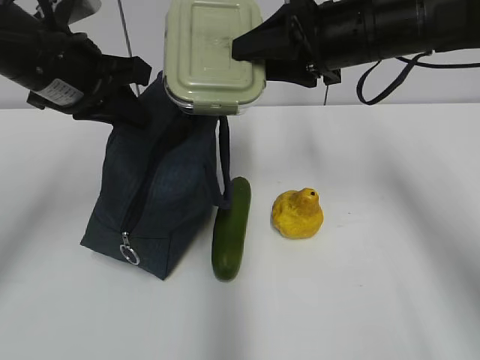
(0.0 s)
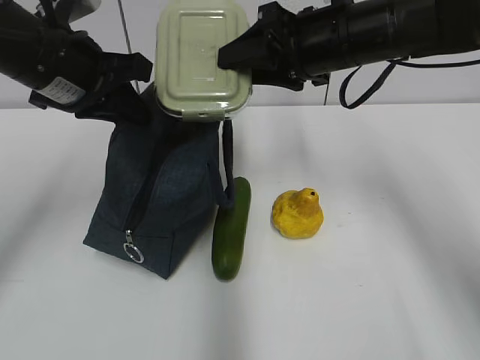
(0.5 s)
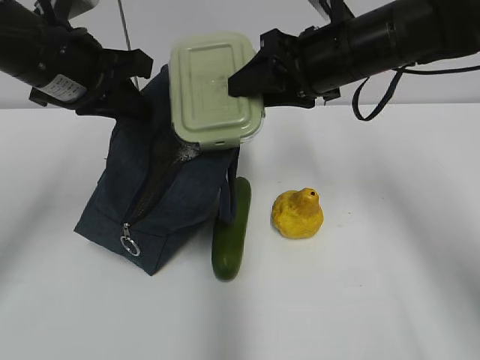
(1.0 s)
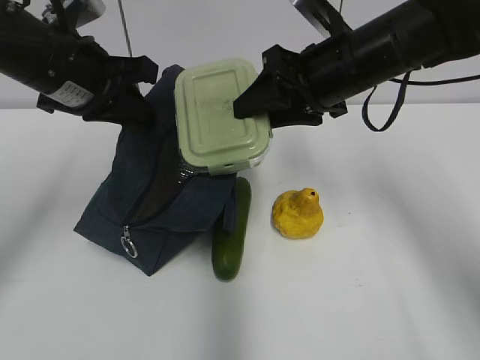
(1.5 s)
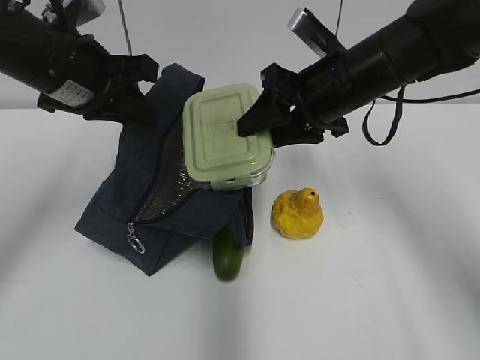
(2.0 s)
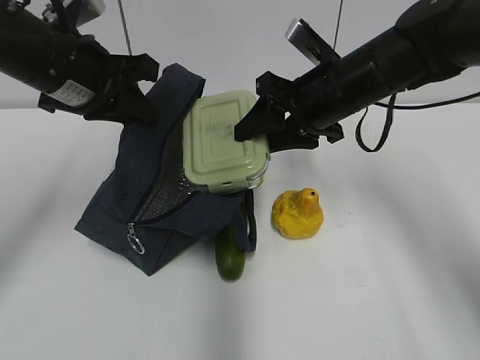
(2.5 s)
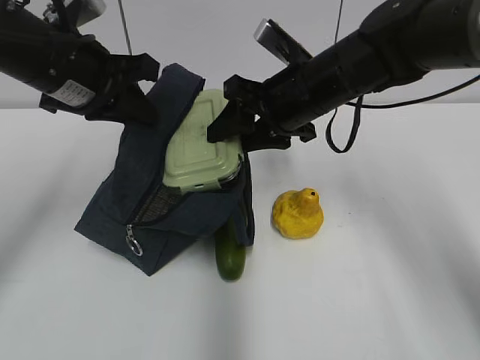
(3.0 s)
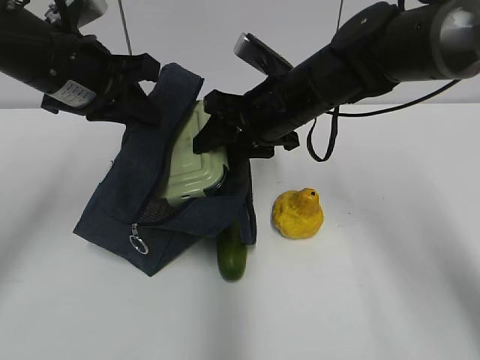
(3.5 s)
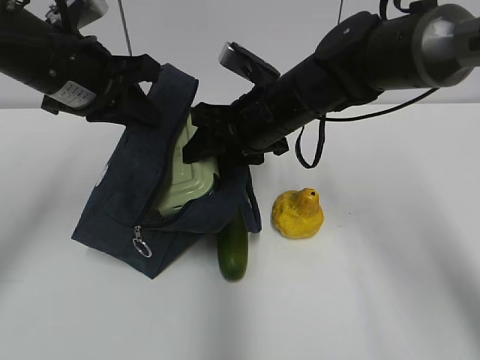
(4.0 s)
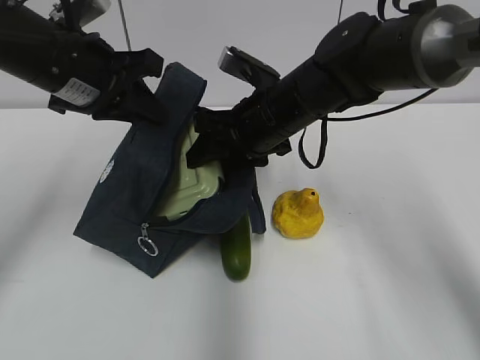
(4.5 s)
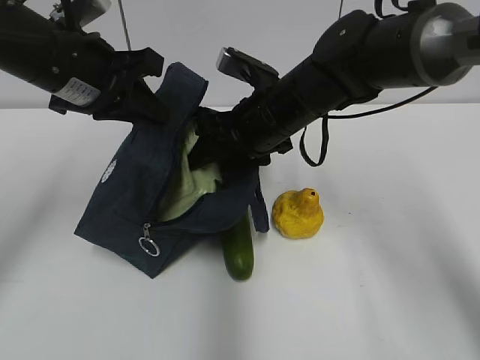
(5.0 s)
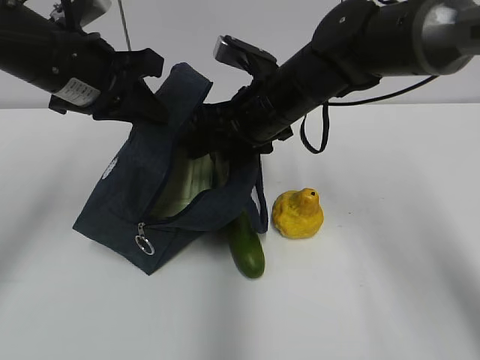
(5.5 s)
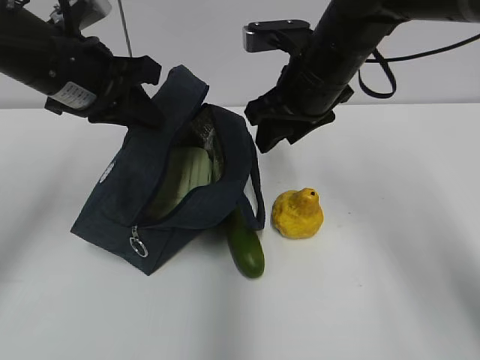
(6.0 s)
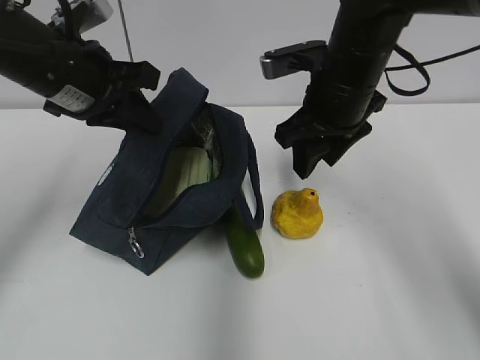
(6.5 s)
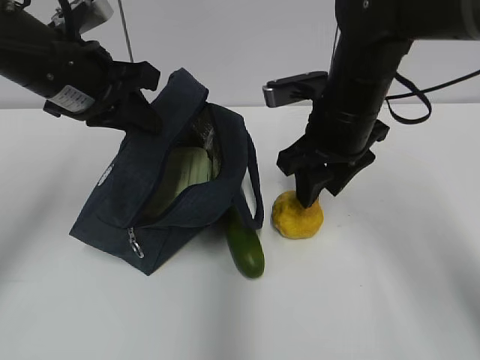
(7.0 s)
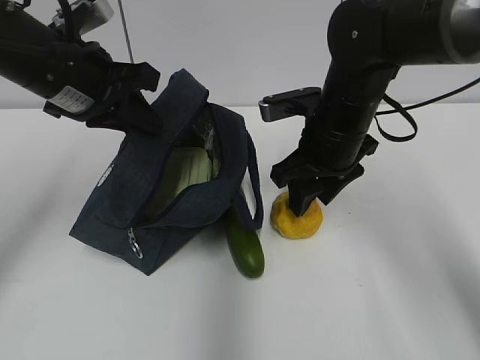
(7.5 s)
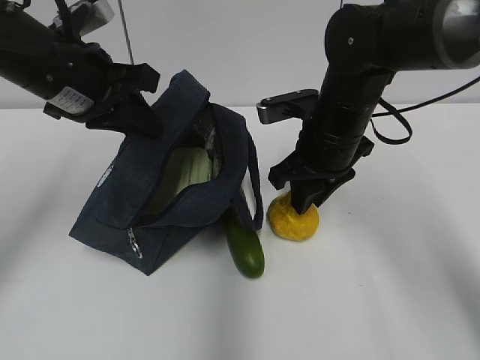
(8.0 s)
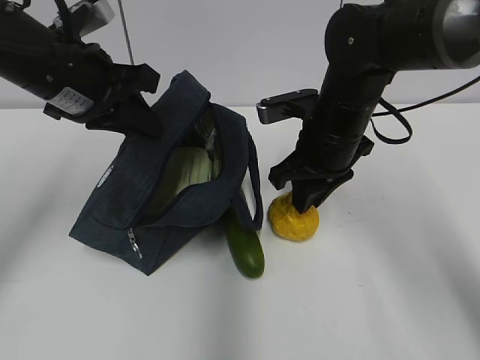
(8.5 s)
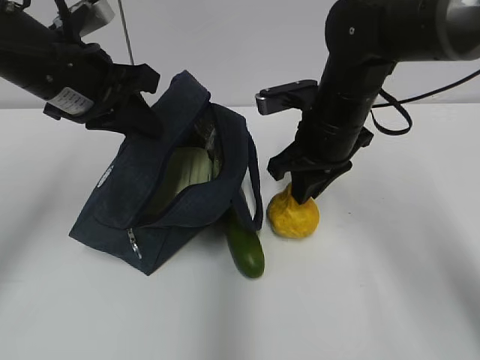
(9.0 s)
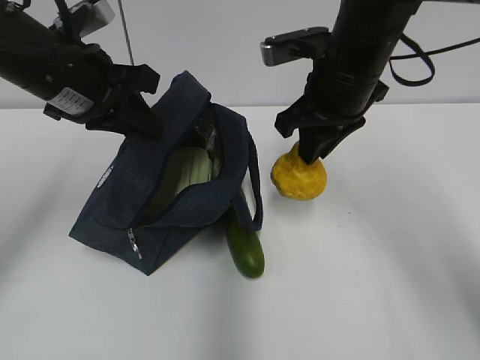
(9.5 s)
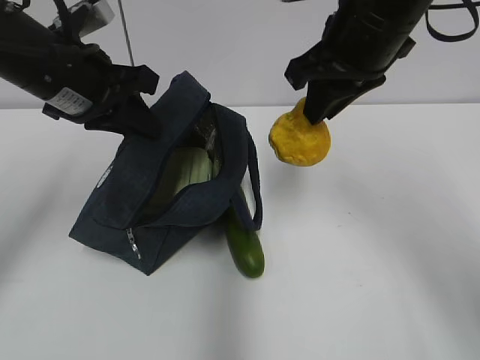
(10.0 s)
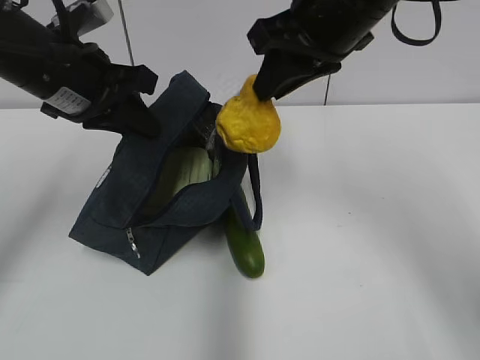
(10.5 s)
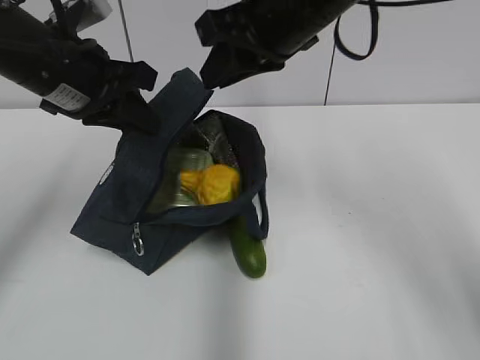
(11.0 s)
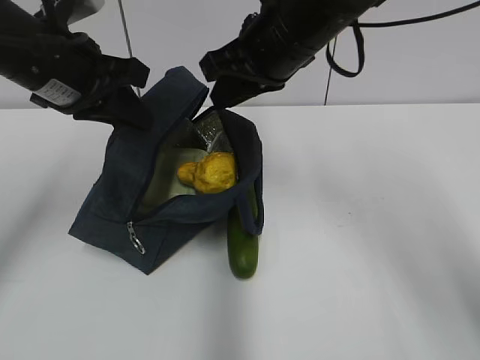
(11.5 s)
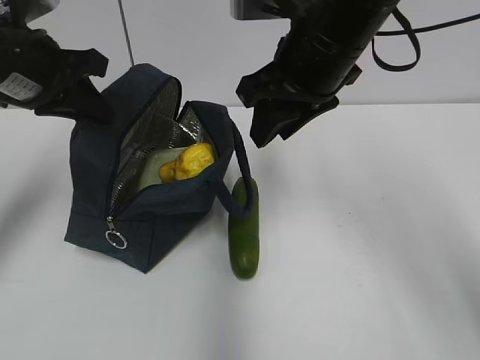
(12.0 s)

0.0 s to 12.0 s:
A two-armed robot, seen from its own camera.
2.0 to 4.0 s: The right gripper heads to the left, covering roughly 5 cm.
4.0 to 6.0 s: The right gripper changes place by some 5 cm.
6.0 to 8.0 s: The right gripper travels downward by roughly 5 cm.
8.0 to 10.0 s: The right gripper heads upward, covering approximately 15 cm.
10.0 to 12.0 s: The left gripper shifts approximately 5 cm to the left.

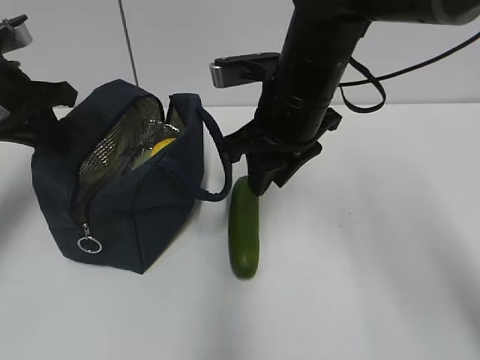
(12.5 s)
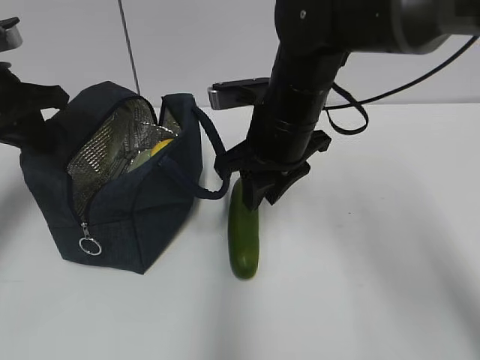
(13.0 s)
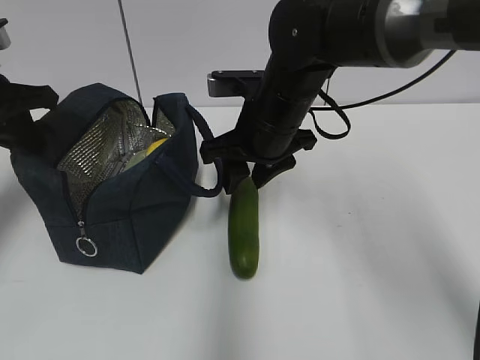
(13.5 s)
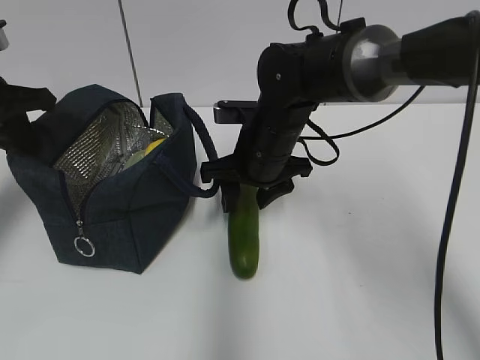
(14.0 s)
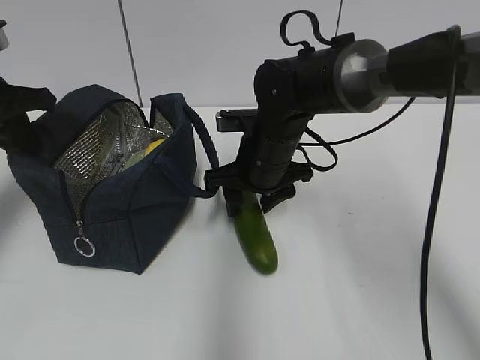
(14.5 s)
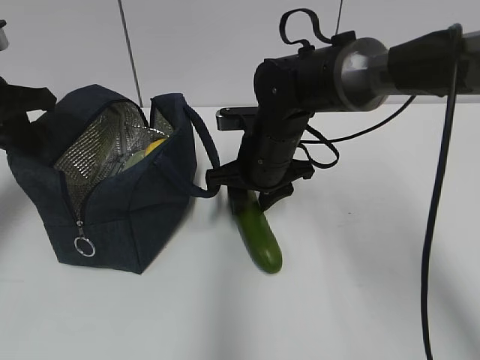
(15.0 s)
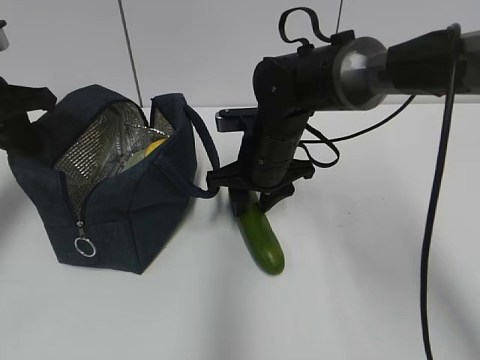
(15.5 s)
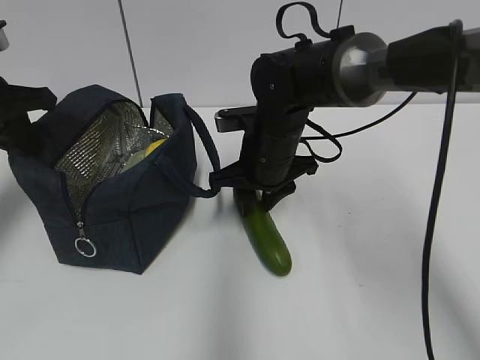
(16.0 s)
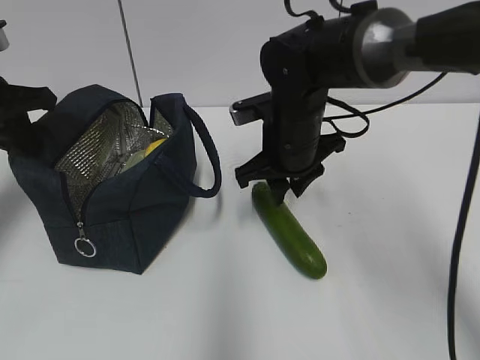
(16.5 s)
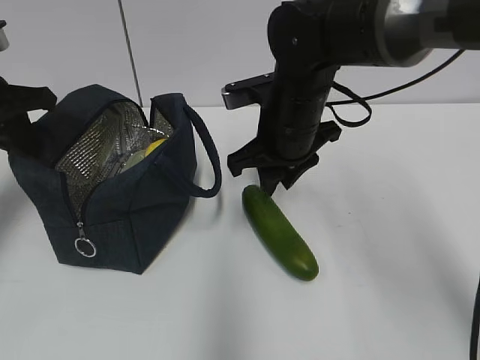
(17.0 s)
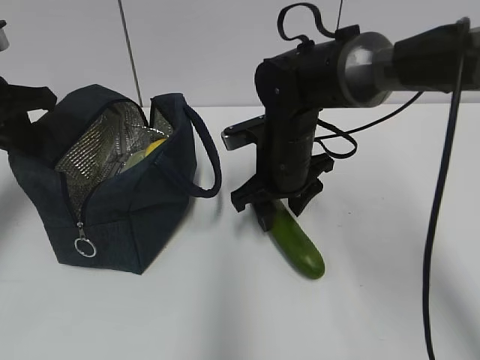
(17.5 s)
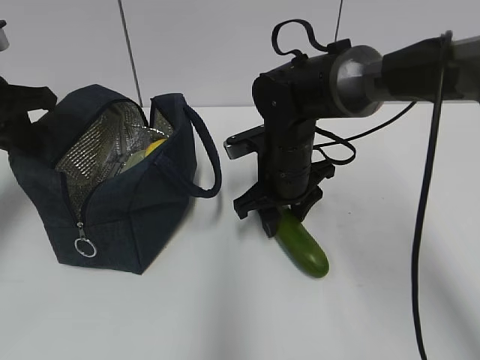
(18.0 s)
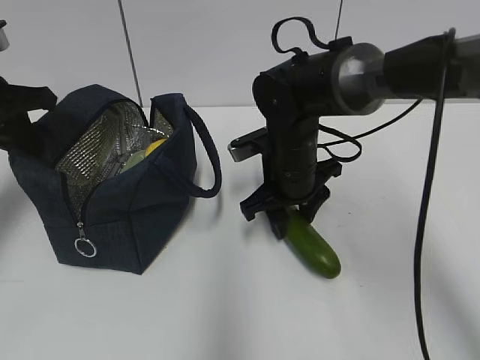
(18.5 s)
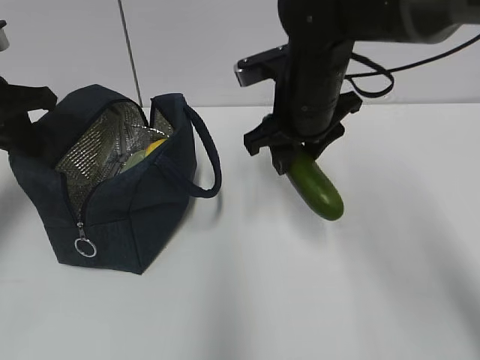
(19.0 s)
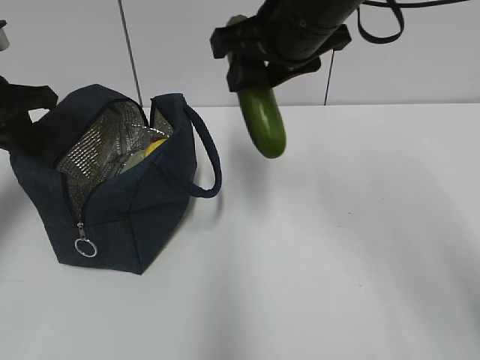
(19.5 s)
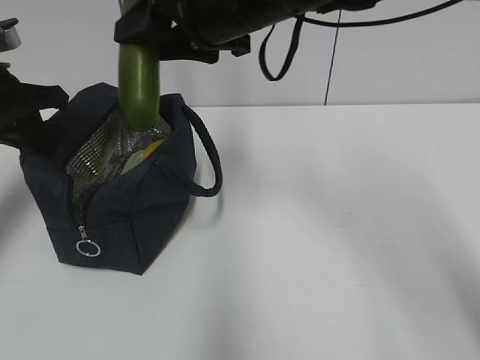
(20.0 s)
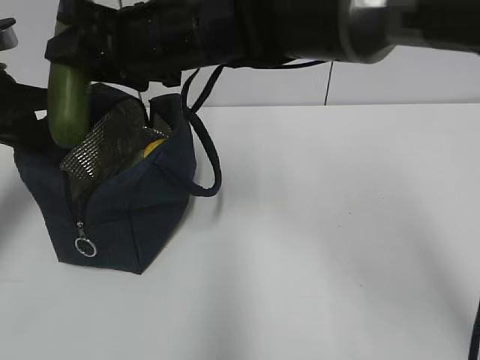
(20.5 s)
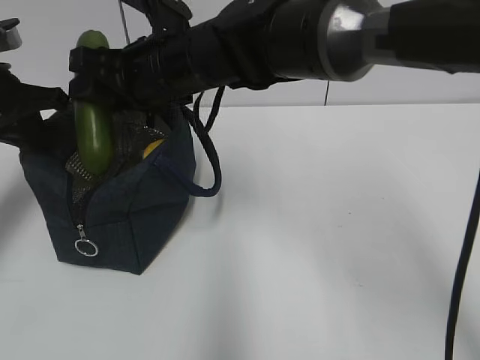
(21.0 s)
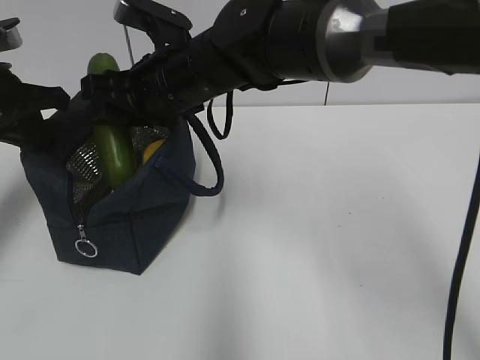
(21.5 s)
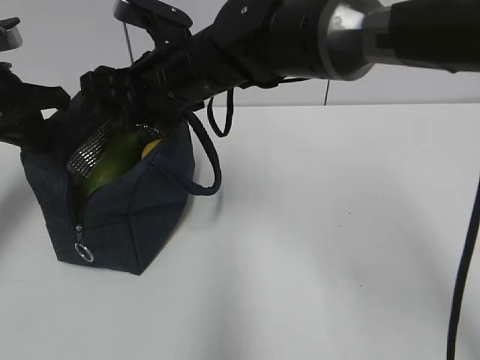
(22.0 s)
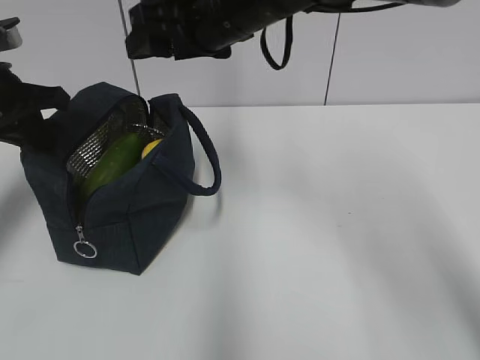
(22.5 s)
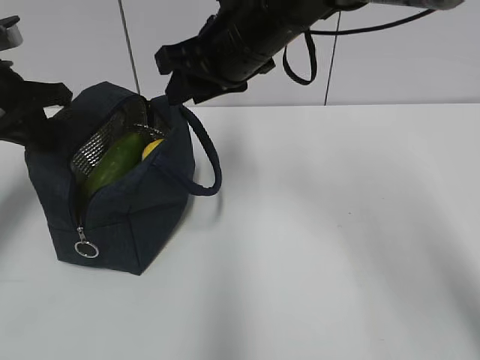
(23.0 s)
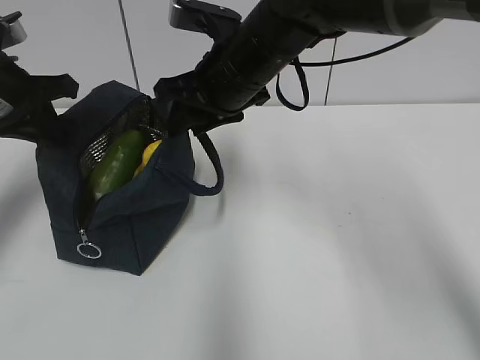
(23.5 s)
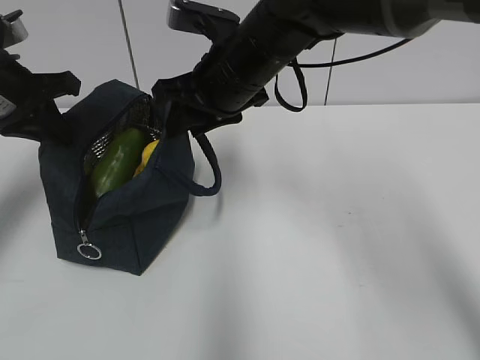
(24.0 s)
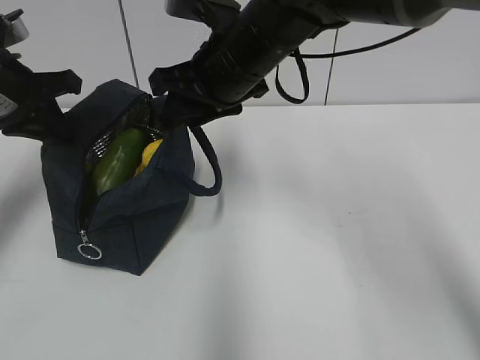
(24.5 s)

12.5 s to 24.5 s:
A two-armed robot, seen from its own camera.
12.5 to 14.5 s: The right gripper travels downward by approximately 10 cm.
14.5 to 16.5 s: The right gripper closes up.
16.5 to 18.5 s: There are only small adjustments of the grippers.
18.5 to 20.5 s: The right gripper heads upward and to the left, covering roughly 20 cm.
20.5 to 22.5 s: The right gripper travels to the right by some 5 cm.
22.5 to 24.5 s: The right gripper closes.

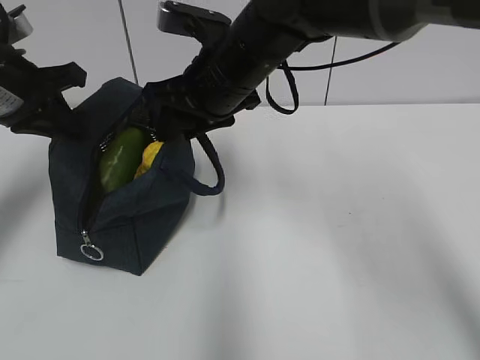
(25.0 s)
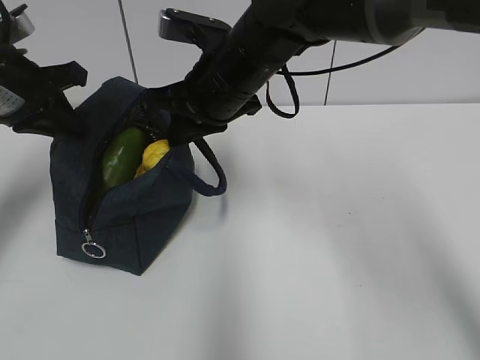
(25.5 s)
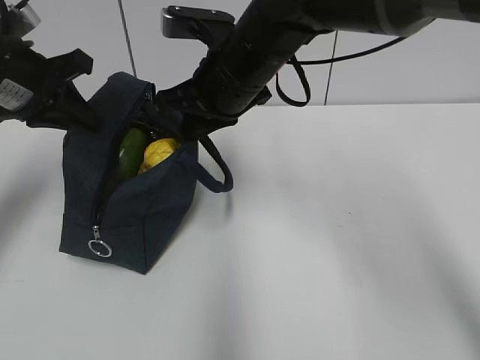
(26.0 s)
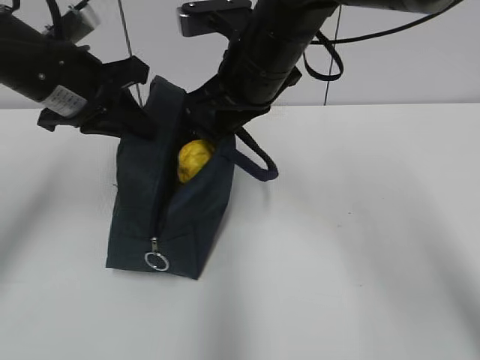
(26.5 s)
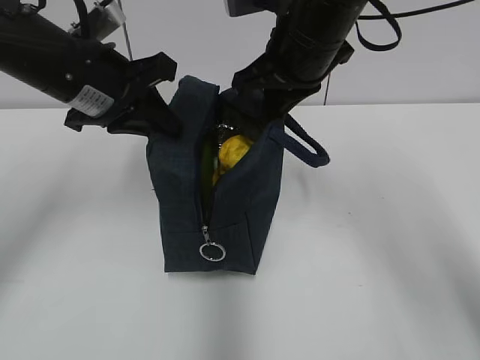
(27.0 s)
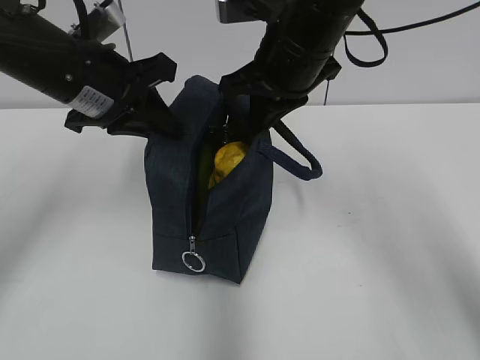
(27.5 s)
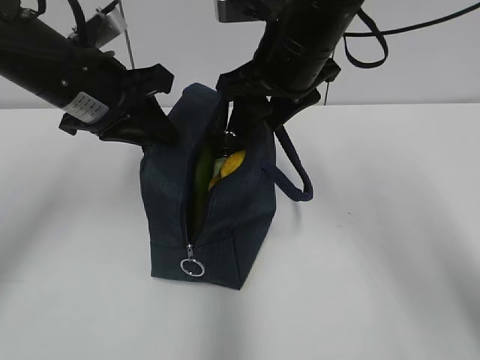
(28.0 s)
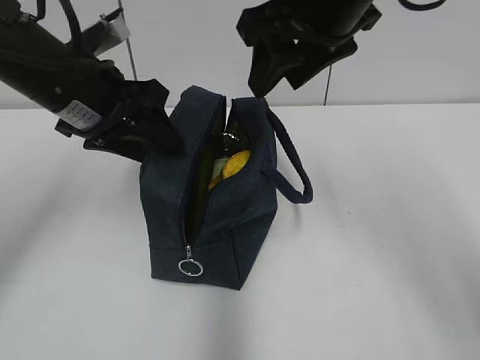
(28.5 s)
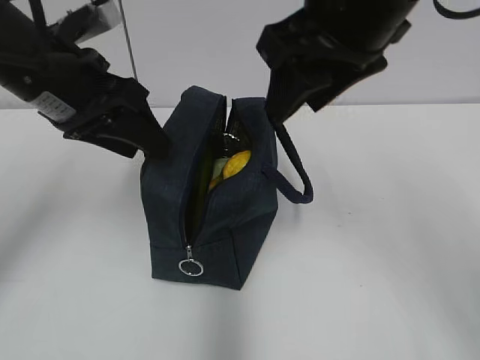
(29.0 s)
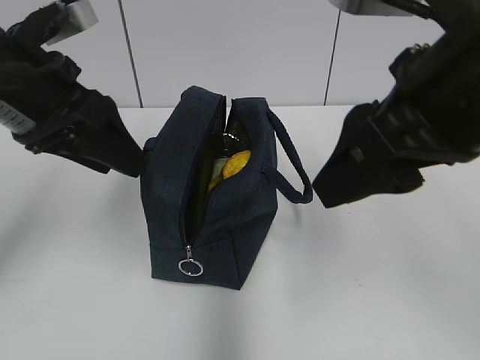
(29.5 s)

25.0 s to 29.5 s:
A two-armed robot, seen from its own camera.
25.0 to 27.0 s: The two grippers go approximately 10 cm to the right. The right gripper closes.
27.0 to 29.5 s: The left gripper moves backward, about 5 cm, and opens. The right gripper moves backward, some 15 cm, and opens up.
